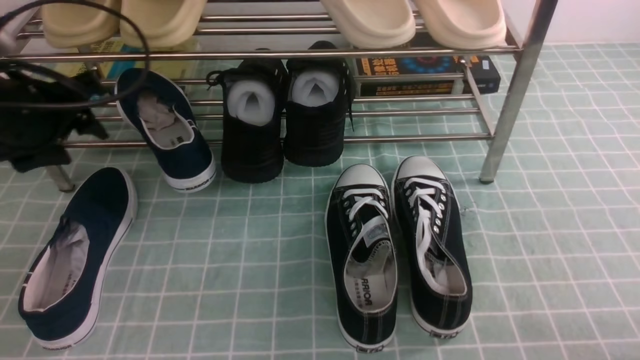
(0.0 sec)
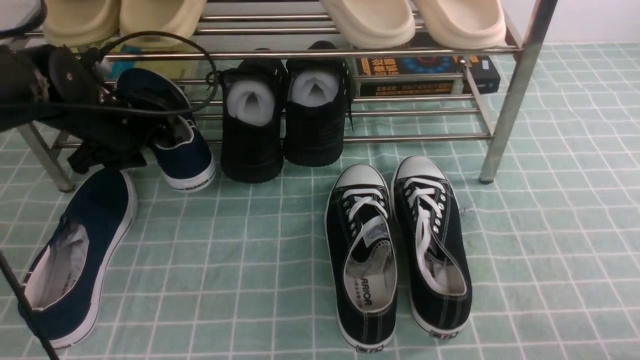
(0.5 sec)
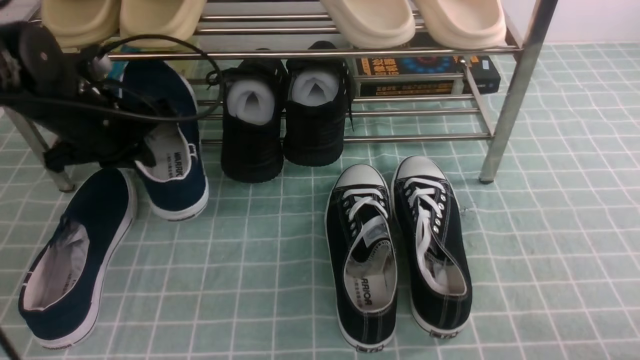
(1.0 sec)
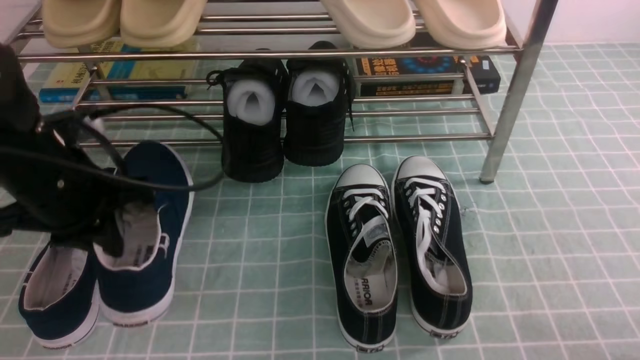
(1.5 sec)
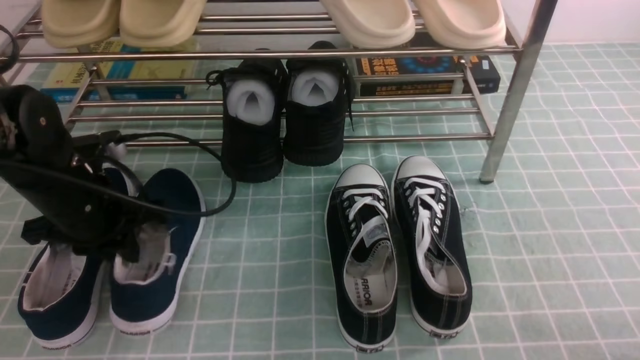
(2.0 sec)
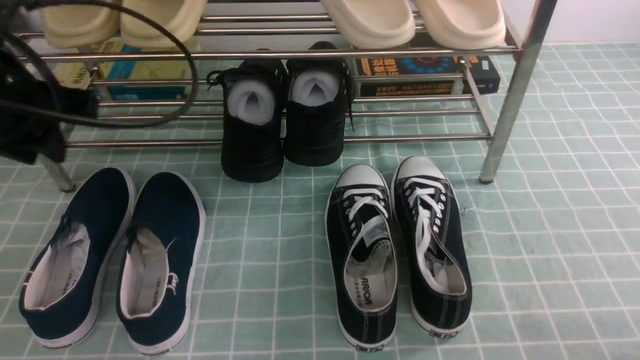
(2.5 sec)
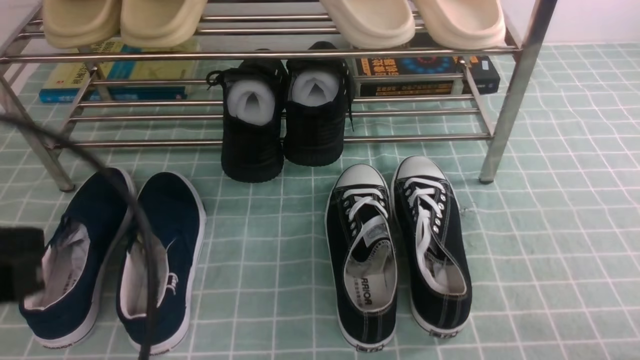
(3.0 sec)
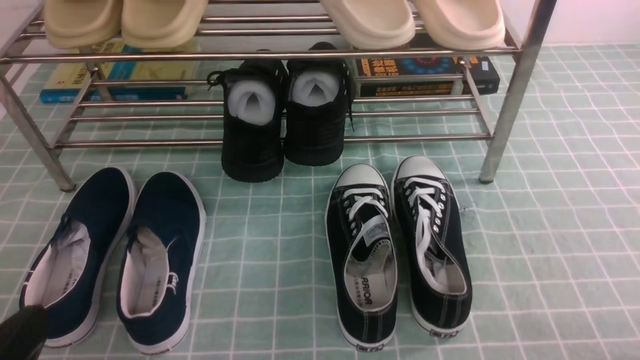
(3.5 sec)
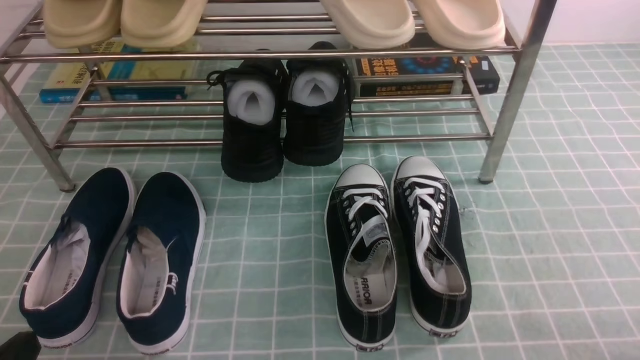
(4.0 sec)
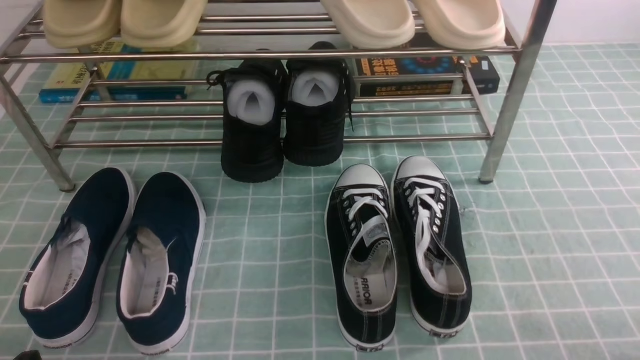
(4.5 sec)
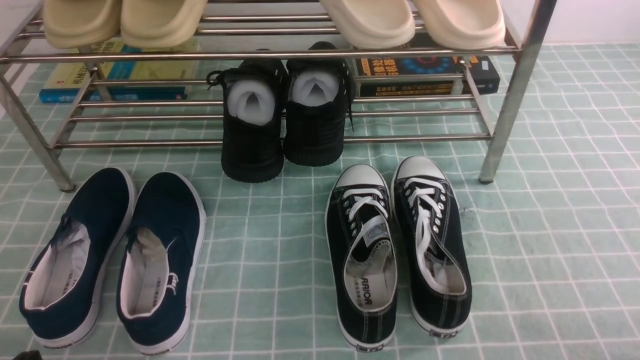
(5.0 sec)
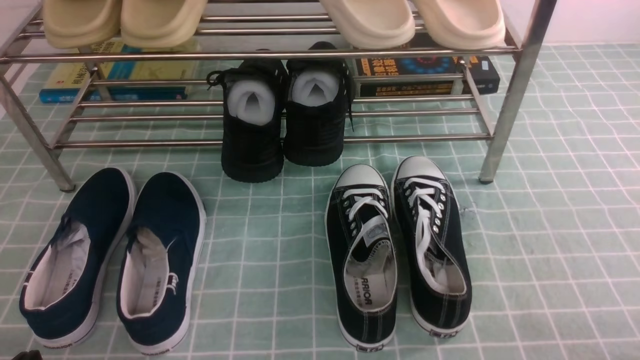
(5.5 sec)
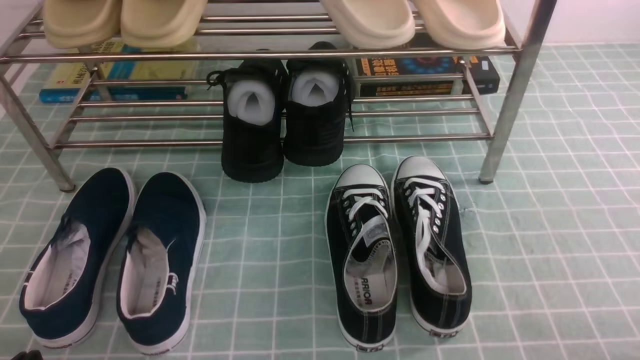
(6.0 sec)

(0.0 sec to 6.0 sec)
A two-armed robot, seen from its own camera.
Step, 1.0 sec - 2.0 sec: Use your left arm to remove the clamped shoe from the shoe rack and put it down.
0.0 sec - 2.0 sec: The left gripper moves downward, roughly 5 cm, moves approximately 5 cm forward and comes back, and closes up.
2.0 sec - 4.0 sec: The left gripper goes approximately 25 cm backward.
